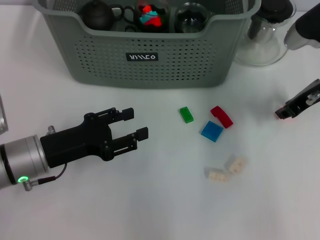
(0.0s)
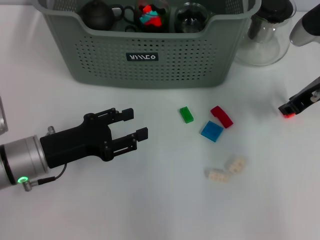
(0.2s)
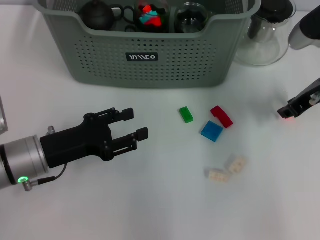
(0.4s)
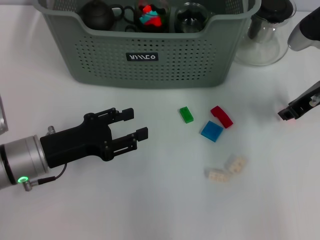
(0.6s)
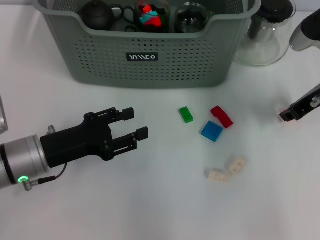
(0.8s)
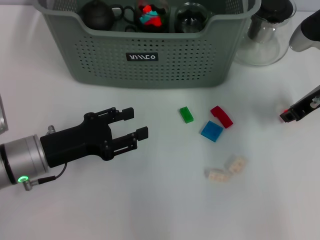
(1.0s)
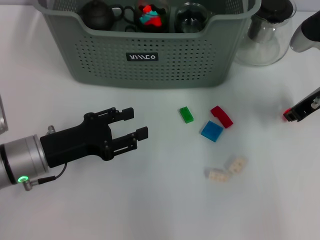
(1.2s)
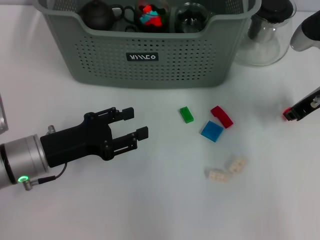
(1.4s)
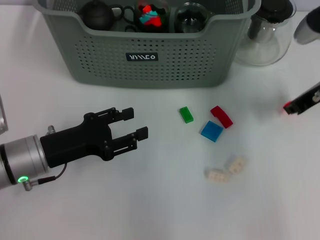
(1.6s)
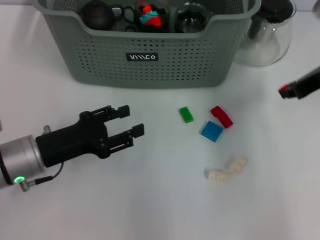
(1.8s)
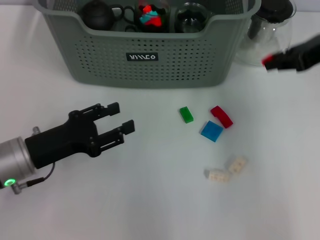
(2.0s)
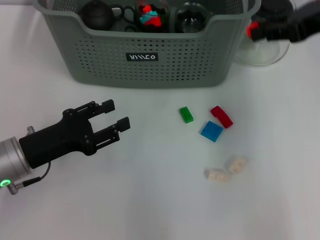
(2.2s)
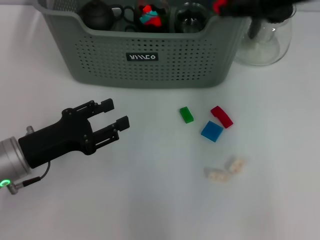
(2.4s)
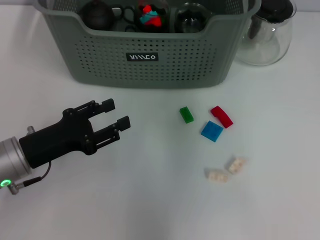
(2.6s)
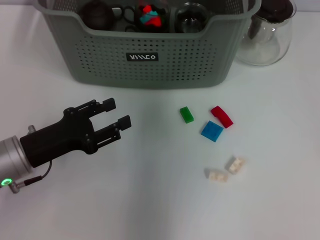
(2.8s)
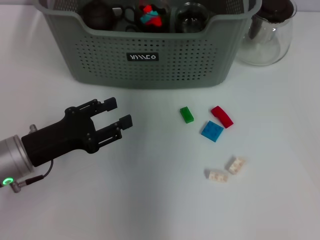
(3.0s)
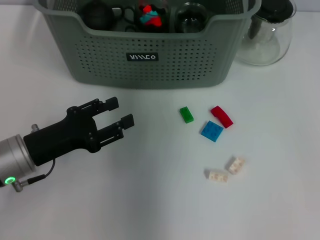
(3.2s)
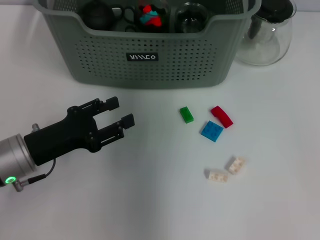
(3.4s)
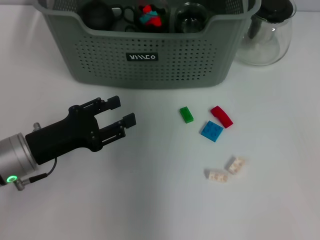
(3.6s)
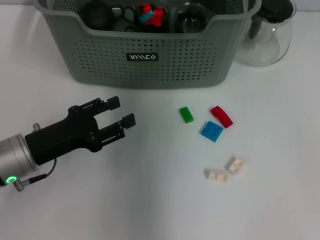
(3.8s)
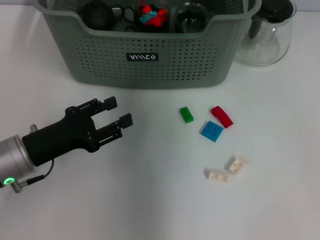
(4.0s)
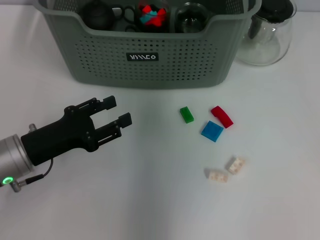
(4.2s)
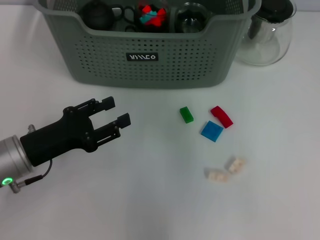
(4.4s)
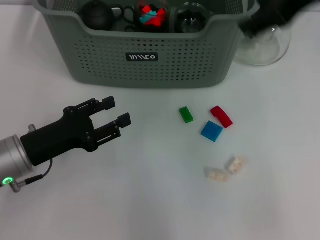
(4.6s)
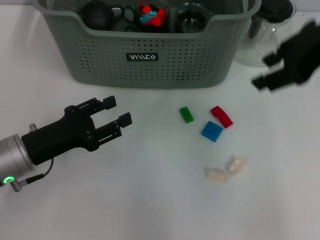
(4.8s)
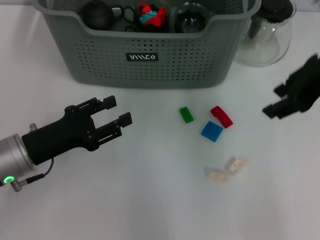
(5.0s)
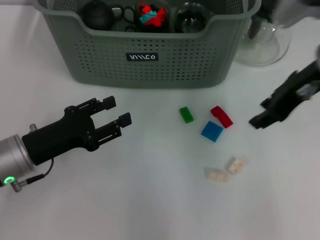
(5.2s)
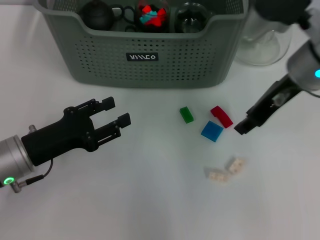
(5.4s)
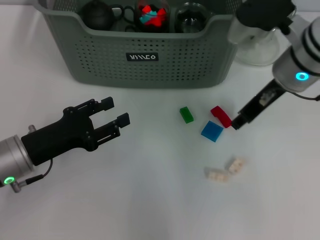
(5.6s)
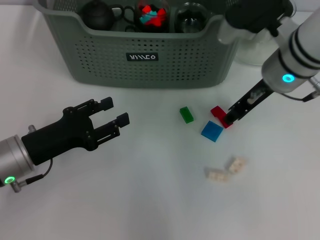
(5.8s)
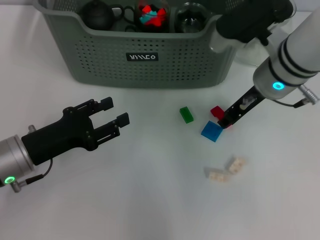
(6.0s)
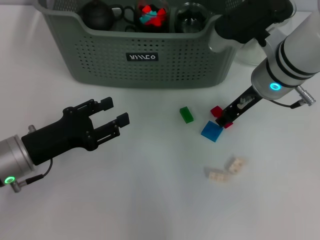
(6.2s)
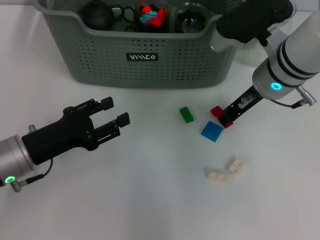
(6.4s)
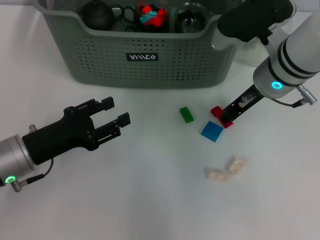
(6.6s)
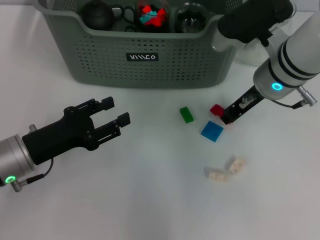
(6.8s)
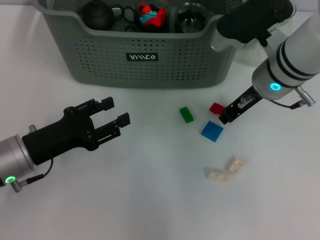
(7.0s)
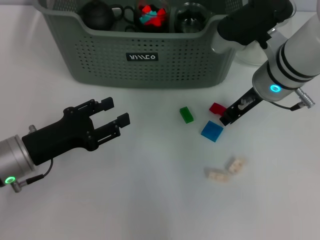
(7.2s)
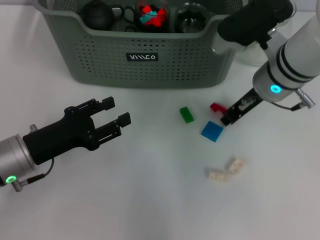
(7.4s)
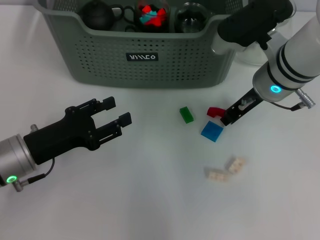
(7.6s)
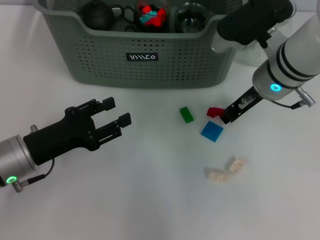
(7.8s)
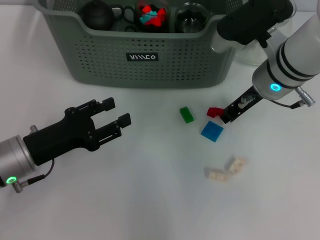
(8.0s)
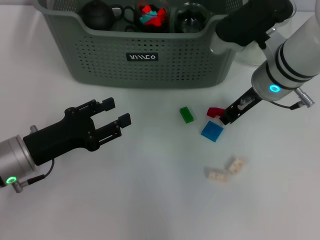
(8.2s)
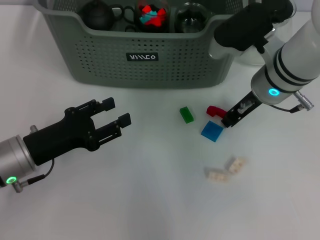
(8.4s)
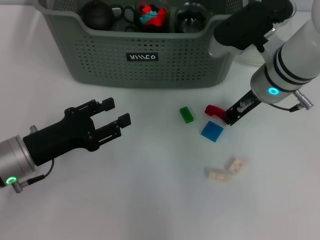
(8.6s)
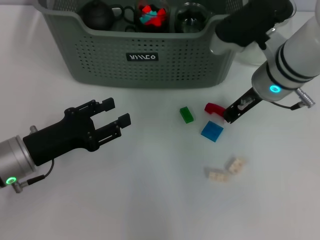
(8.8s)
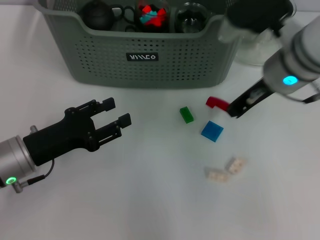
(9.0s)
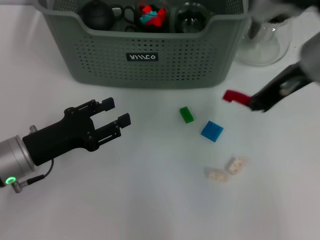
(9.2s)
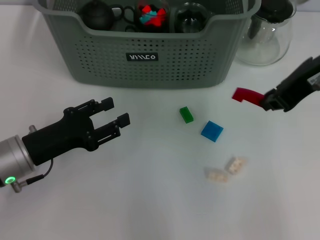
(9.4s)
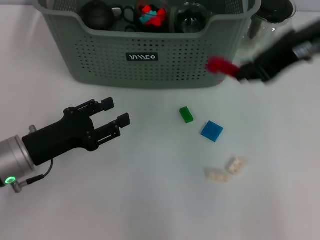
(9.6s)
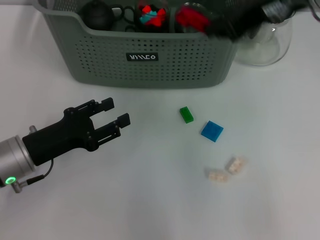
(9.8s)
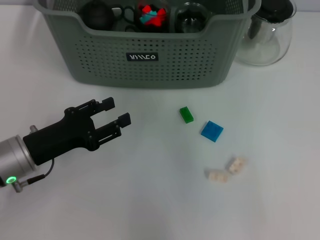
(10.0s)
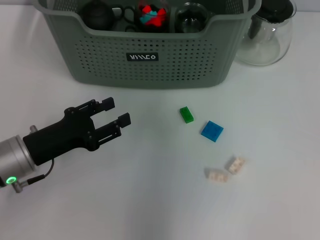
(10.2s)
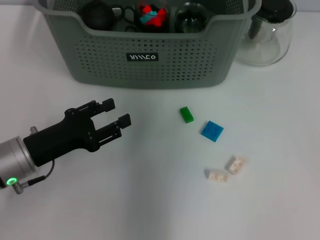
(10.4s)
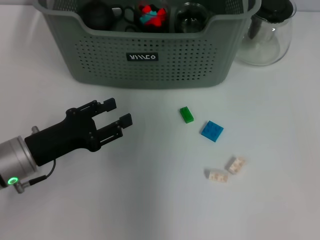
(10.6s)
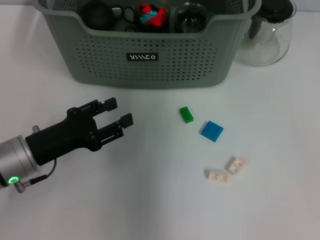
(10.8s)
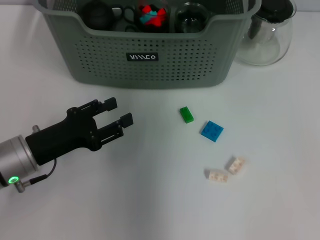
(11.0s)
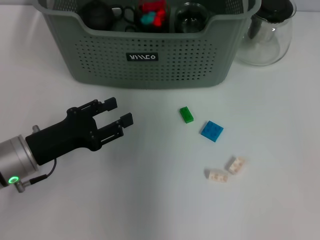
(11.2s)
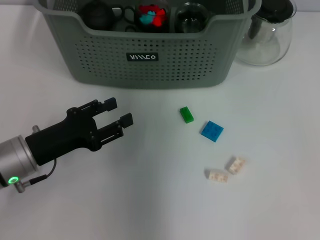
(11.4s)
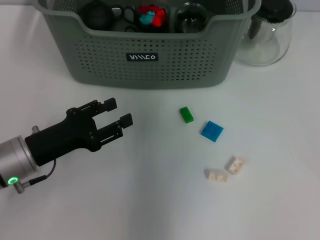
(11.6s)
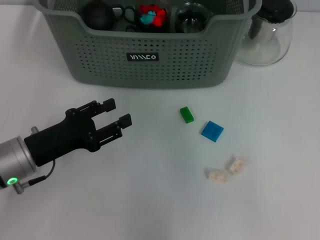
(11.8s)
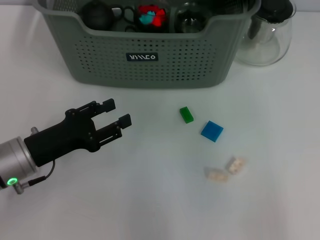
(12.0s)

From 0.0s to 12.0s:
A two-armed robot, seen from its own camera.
Task of the whole recording: pick up the teacup on the table and place it into the storage bin, pick up the block on the table and place it into the storage bin.
Step, from 1.6s to 3.8s: Place the orange block in the storage box with right gripper.
Step, from 4.0s to 8.6s: Grasp the red block with right gripper.
Step, from 8.8s to 11.2s: Place the red block in the storage box with right gripper.
From 0.0s to 1.6s: Both grippers stay about where they are.
From 1.6s to 3.0s: The right gripper moves to the left, upward and forward, some 25 cm.
From 3.0s to 4.4s: The right gripper travels backward and to the right by roughly 10 cm, and opens its fingers.
From 4.4s to 6.0s: The right gripper shifts some 15 cm downward.
From 6.0s to 7.6s: The two grippers keep their place.
From 7.6s to 9.0s: The right gripper ends up approximately 5 cm from where it was.
From 9.0s to 10.4s: The right gripper goes about 15 cm forward, upward and to the left.
From 10.4s to 12.0s: The right gripper shifts some 20 cm backward, to the right and upward, and opens.

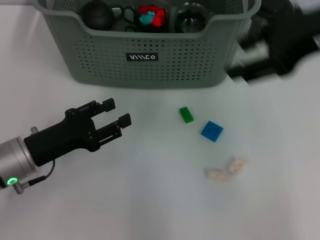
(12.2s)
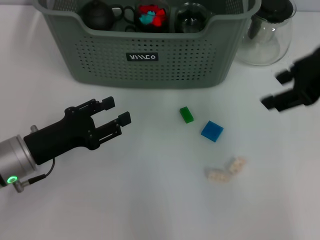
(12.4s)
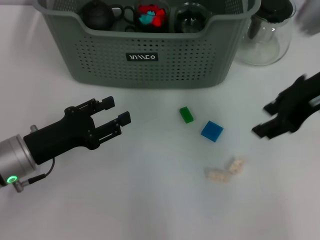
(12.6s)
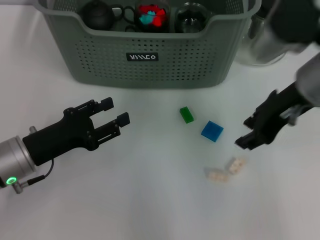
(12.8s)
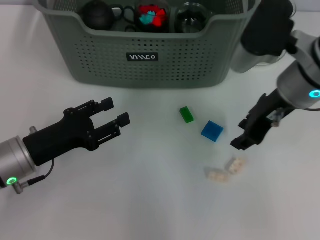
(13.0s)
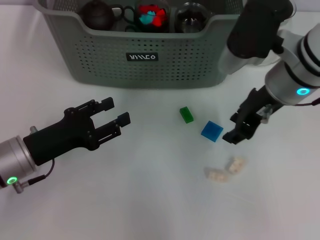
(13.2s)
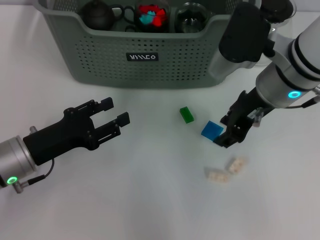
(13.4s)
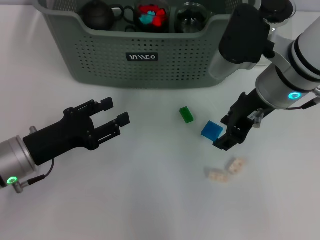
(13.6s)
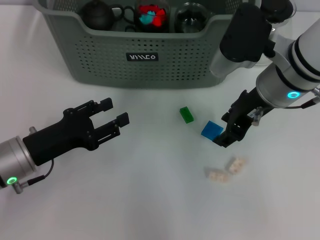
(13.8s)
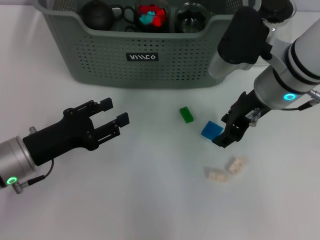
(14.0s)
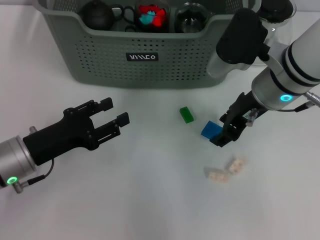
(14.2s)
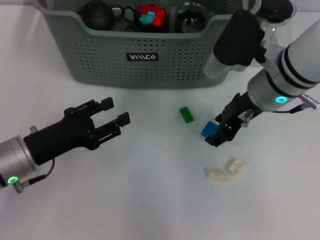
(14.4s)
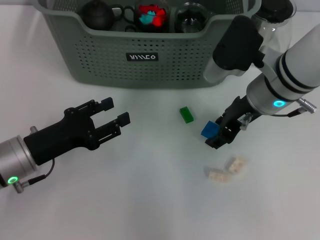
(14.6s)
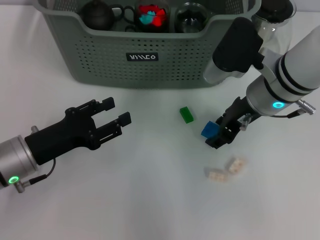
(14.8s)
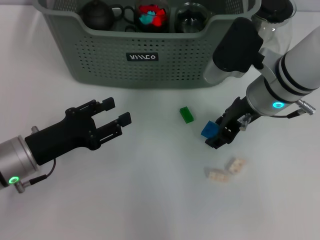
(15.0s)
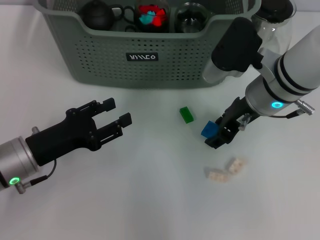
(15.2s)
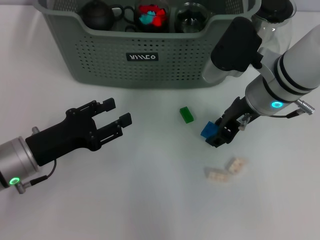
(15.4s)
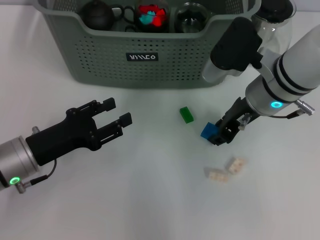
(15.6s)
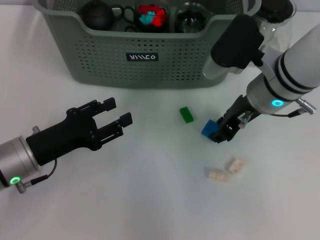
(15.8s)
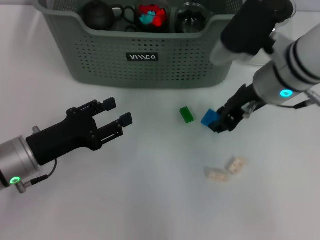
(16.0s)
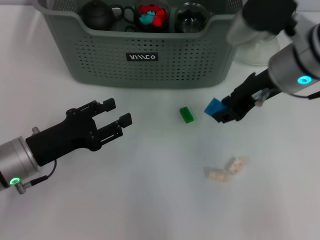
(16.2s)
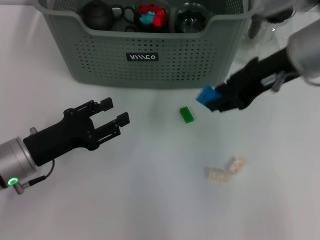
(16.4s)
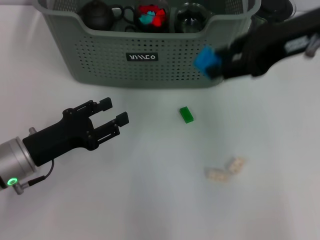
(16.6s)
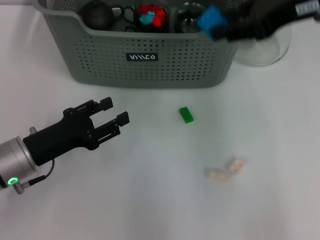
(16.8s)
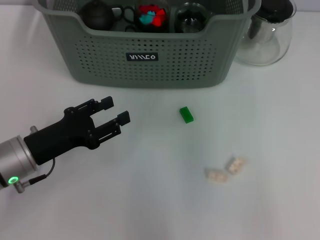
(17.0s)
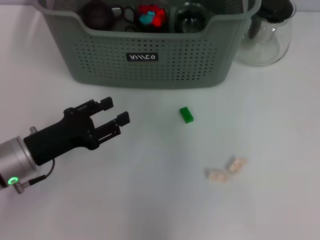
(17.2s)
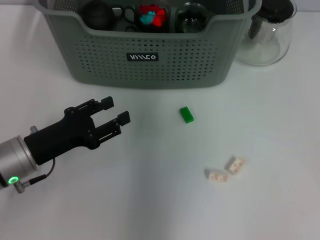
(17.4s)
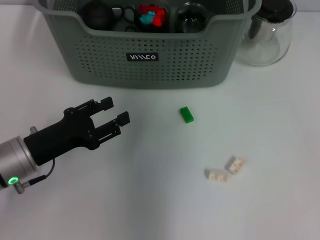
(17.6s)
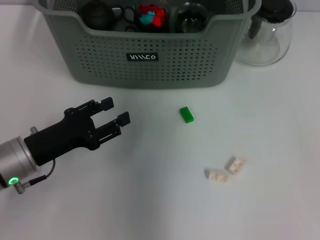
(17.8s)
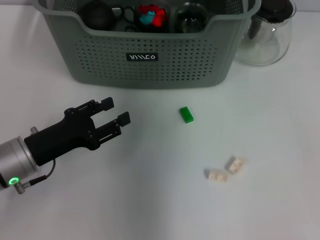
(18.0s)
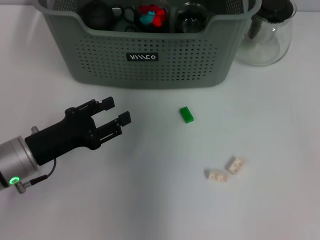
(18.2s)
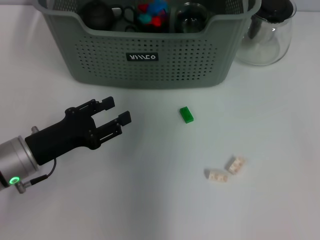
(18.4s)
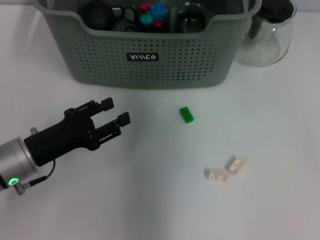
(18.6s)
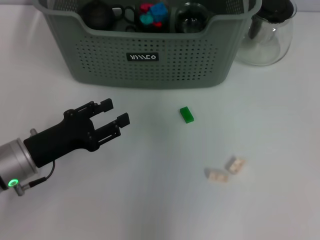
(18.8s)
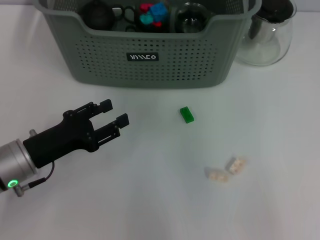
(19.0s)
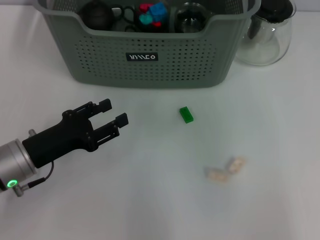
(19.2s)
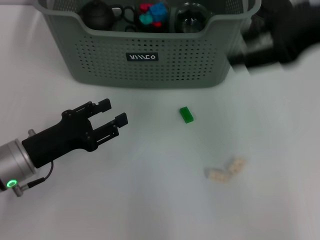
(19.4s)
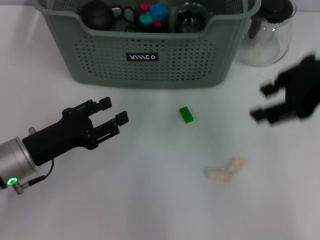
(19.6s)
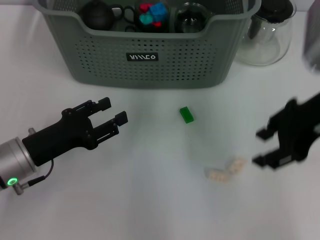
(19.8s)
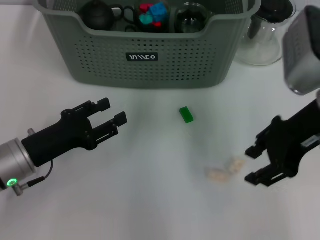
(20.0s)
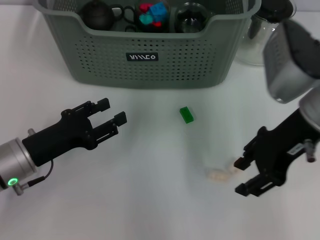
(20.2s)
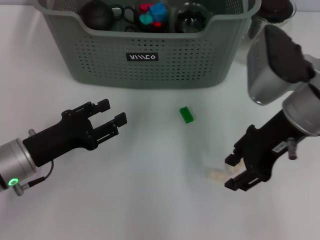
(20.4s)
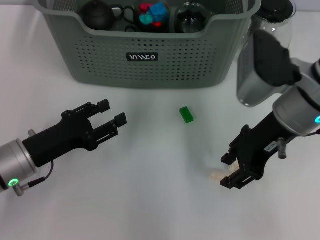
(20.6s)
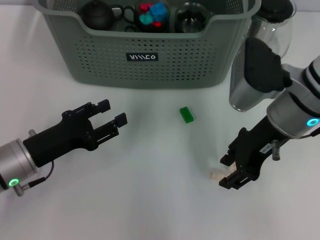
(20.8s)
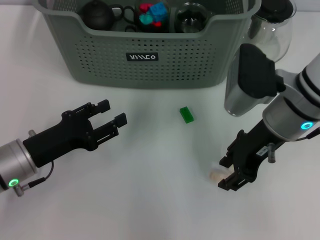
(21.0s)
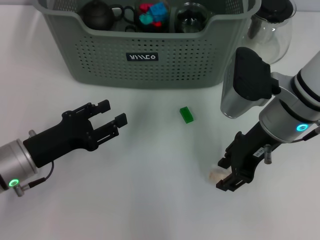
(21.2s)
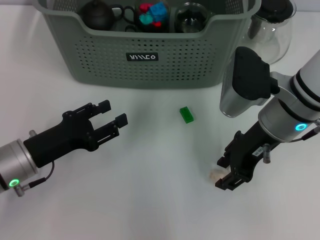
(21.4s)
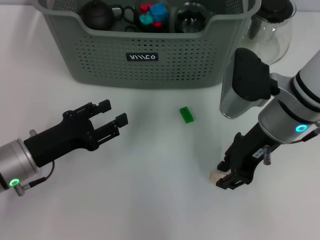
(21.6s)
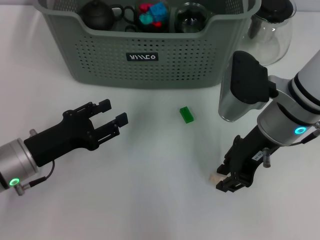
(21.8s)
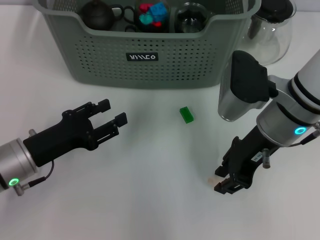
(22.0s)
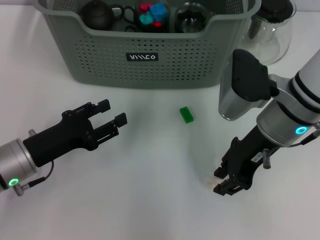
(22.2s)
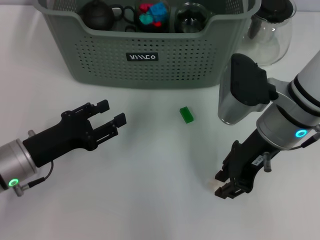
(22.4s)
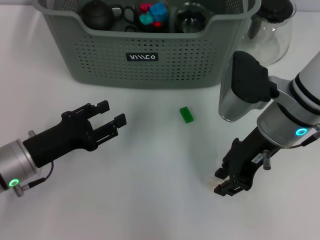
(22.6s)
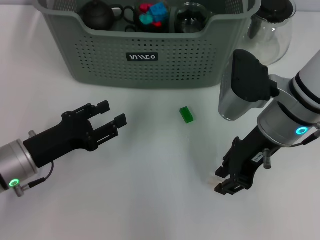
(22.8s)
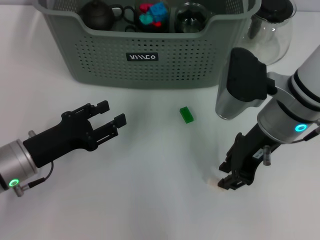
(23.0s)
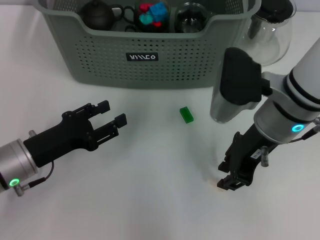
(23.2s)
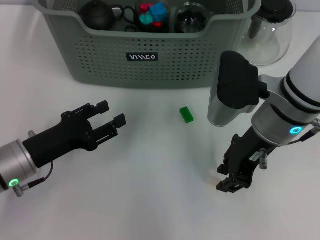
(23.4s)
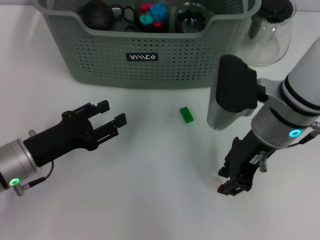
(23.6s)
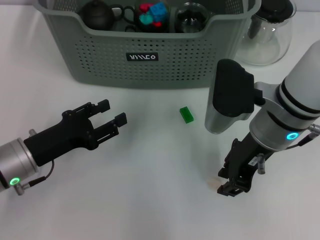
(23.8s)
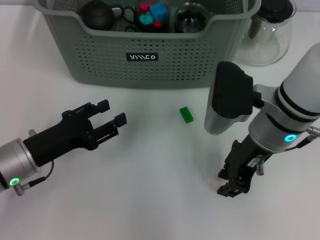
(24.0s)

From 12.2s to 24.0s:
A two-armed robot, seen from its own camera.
Task of the whole recording: pick up the teacup on the table and place it into the storage bin, pick up the block on the table and place it into the storage bin.
Step, from 12.2s to 15.6s: Grasp the dark blue block with right gripper.
Step, from 15.8s to 18.4s: Place the dark blue block in the storage box with right gripper.
From 12.2s to 13.6s: The right gripper goes roughly 15 cm downward and to the left.
From 13.6s to 15.2s: The grippers stay close to where they were, moving slightly.
From 15.2s to 16.6s: The right gripper travels upward by some 15 cm.
From 16.6s to 18.2s: The right gripper moves forward and to the left, approximately 20 cm.
From 18.2s to 19.6s: The right gripper travels backward and to the right by about 25 cm.
From 19.6s to 21.0s: The right gripper is displaced downward and to the left by some 15 cm.
From 21.0s to 22.6s: Both grippers stay about where they are.
From 22.6s to 24.0s: The grippers make only small movements.
